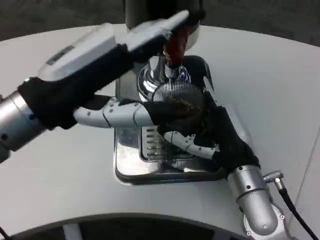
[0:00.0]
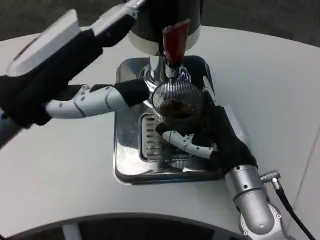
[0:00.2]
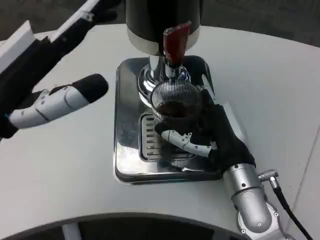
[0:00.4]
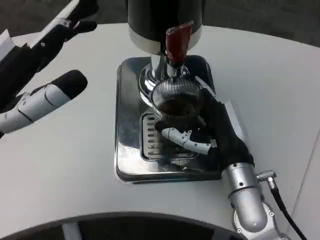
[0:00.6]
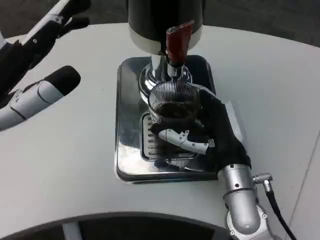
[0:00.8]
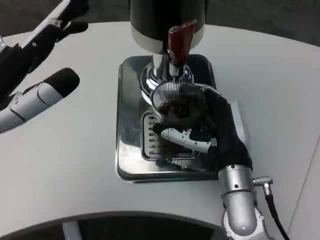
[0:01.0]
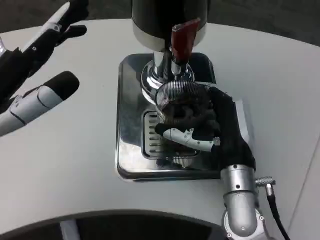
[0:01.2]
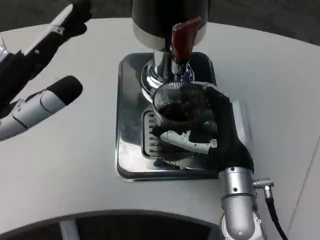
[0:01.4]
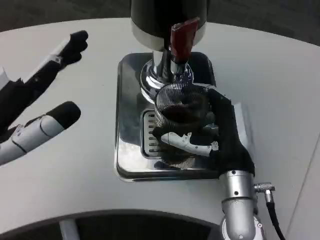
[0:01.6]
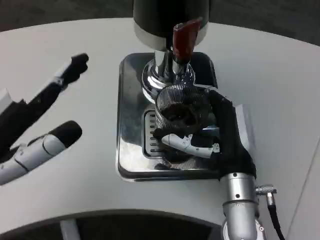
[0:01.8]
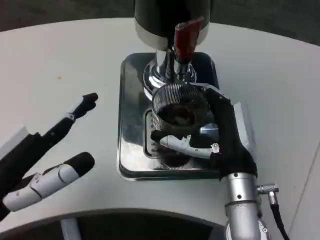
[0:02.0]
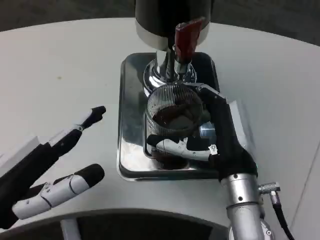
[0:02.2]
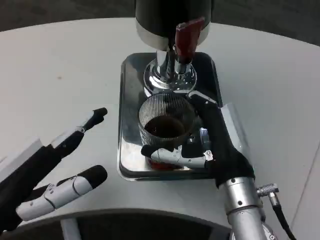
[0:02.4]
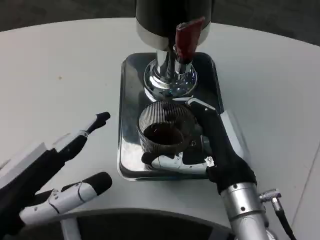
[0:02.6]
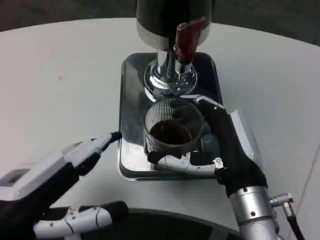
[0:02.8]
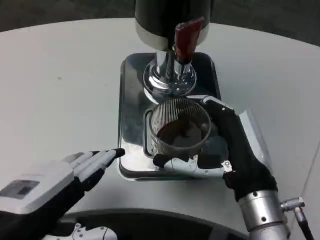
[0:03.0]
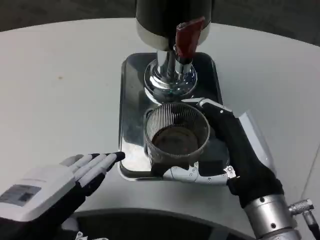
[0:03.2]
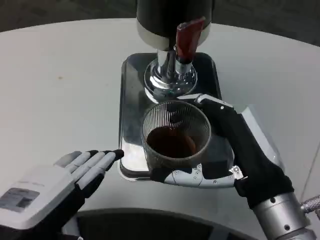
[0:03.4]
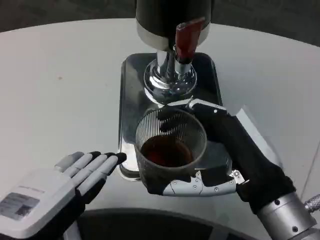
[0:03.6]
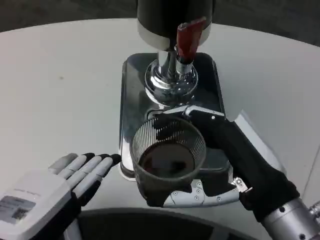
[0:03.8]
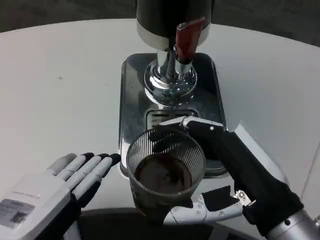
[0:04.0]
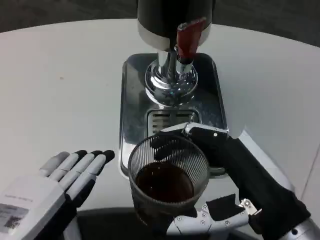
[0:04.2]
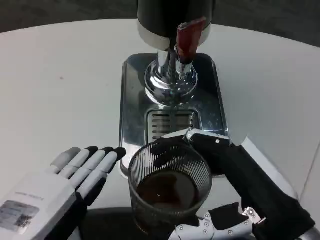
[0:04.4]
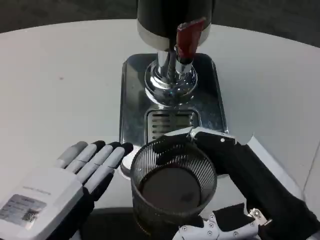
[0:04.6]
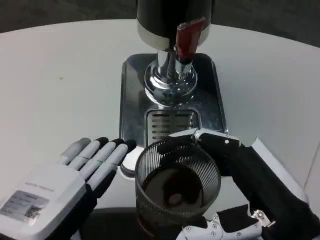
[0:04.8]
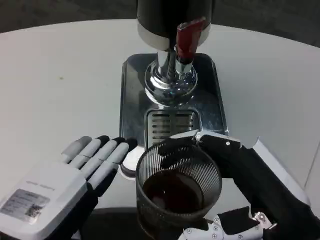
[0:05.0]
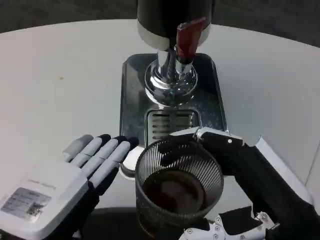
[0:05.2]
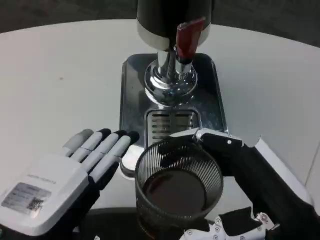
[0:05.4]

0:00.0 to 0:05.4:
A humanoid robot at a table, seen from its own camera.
Task of the whole recording: Grasp the cup under the faucet to collect the drink, then remove the cup.
0:00.0 to 0:01.4: The left hand shifts about 5 cm to the left.
0:01.4 to 0:02.8: The left hand goes approximately 5 cm downward. Meanwhile the right hand shifts by some 5 cm.
0:02.8 to 0:04.0: The right hand is displaced backward by approximately 5 cm.
